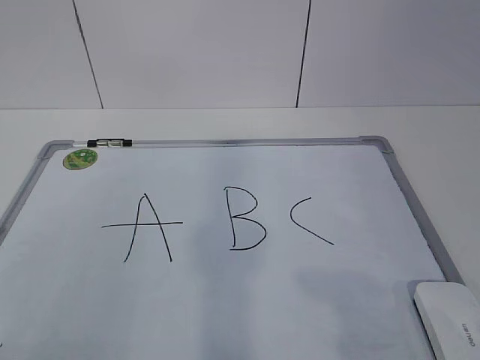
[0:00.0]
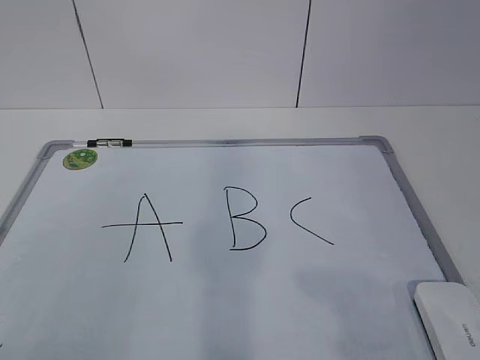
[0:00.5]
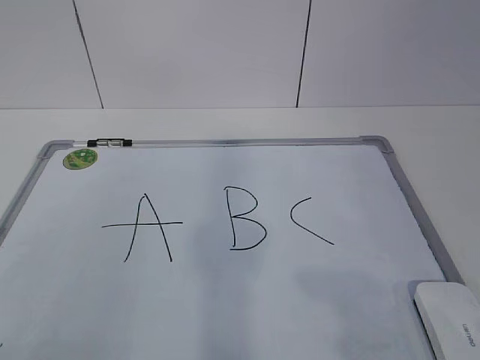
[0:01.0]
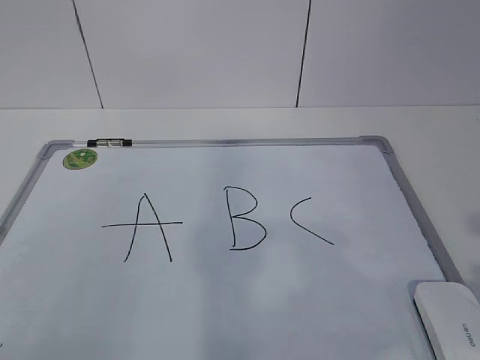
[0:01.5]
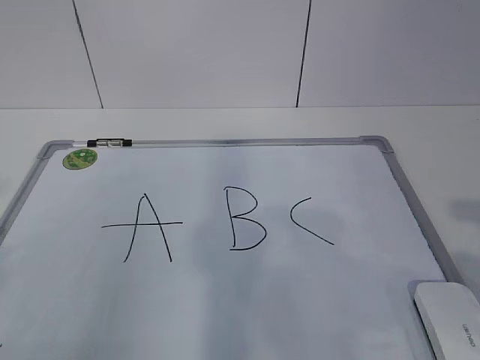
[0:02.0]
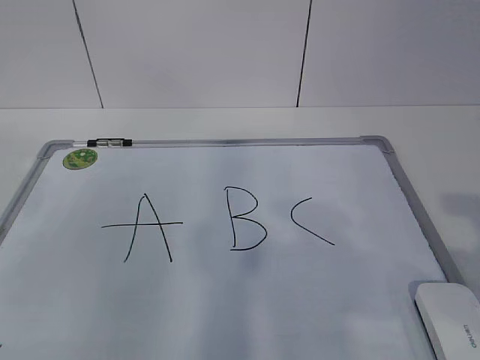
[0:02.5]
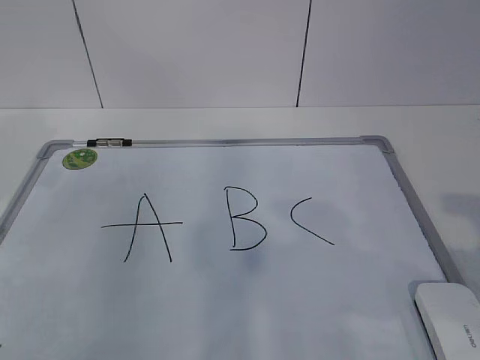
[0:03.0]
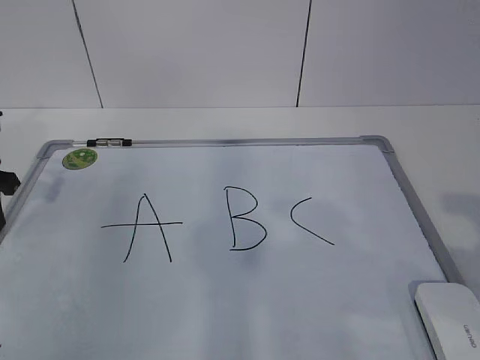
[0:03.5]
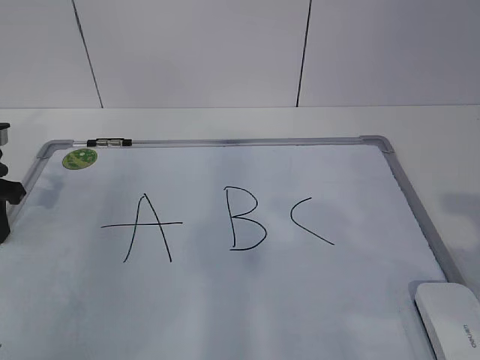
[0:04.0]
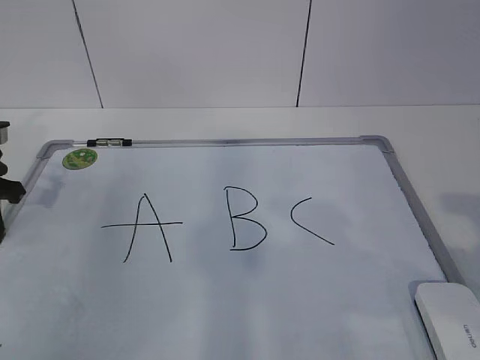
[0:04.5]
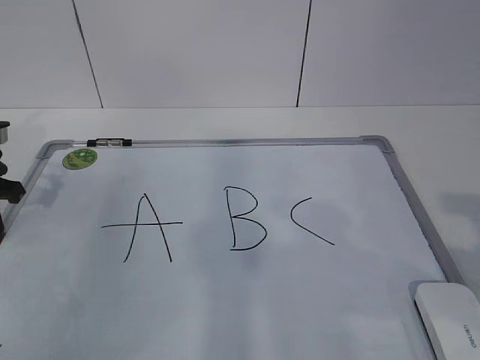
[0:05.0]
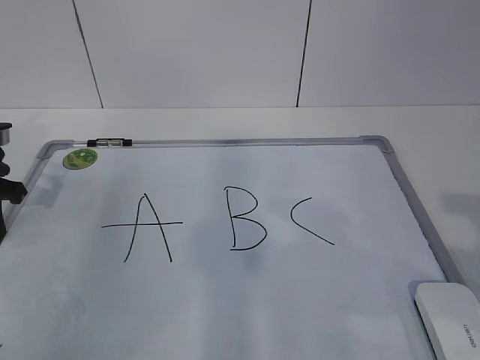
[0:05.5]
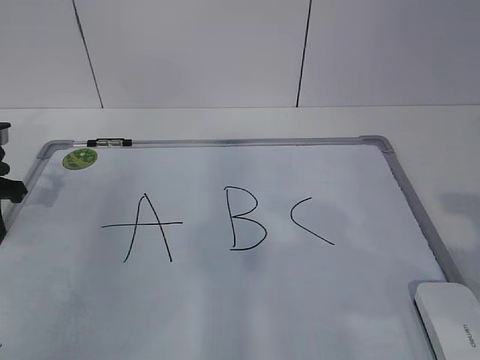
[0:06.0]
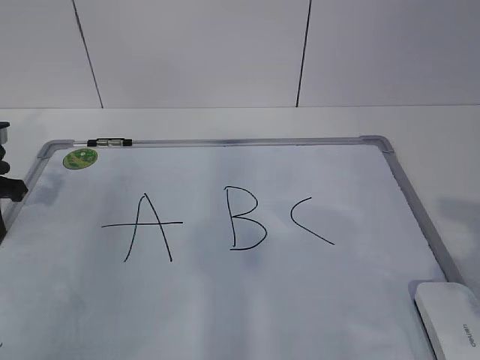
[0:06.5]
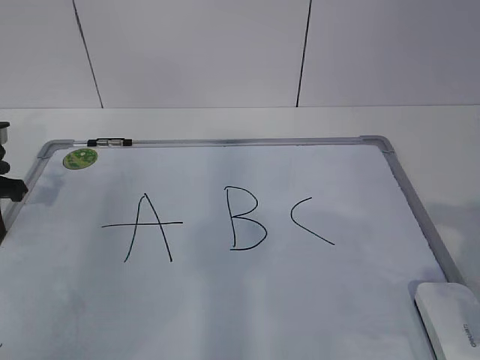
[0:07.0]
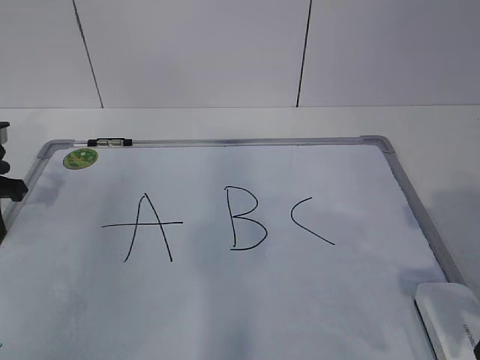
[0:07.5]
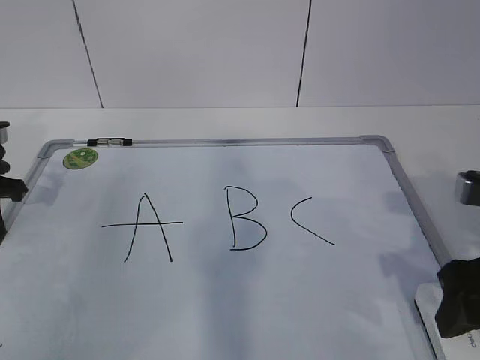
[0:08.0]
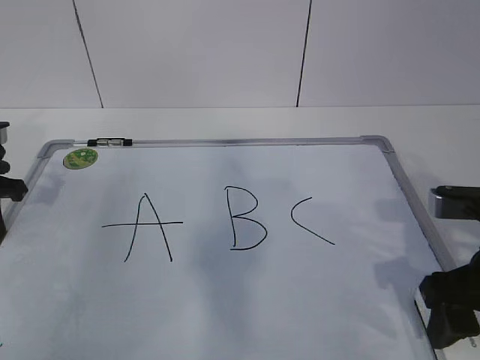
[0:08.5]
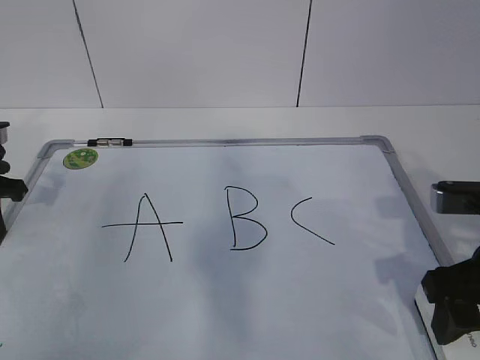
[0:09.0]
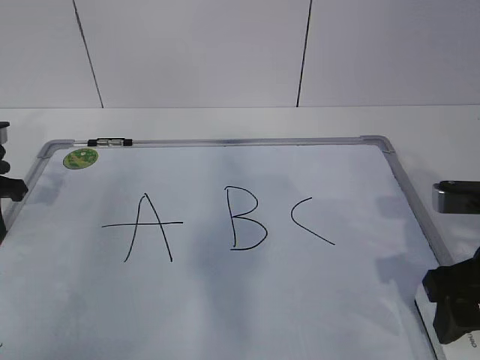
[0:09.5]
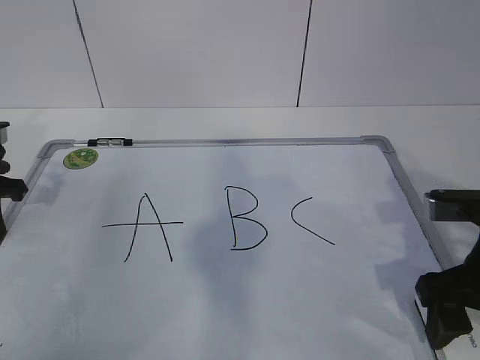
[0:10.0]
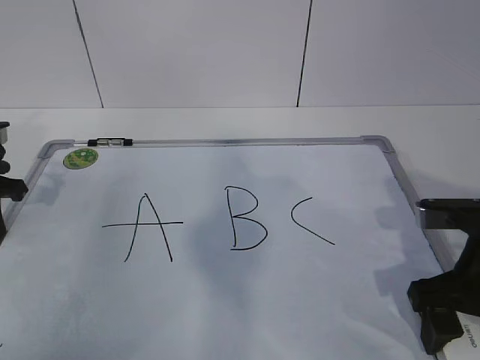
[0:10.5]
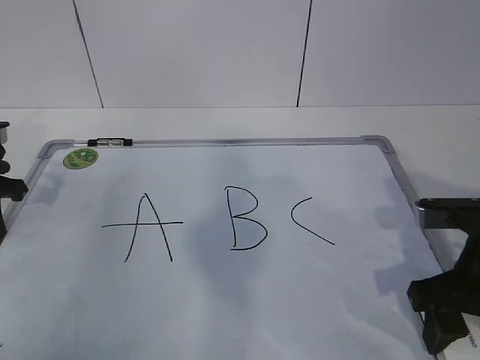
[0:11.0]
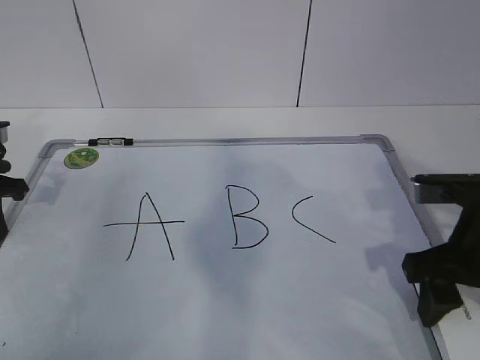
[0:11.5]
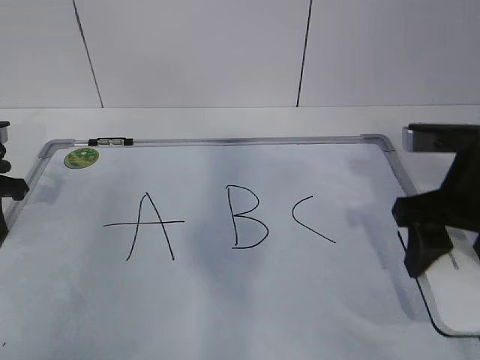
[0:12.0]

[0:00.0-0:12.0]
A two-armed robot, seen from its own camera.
Task of the whole recording: pick up the eraser on the blackboard and erase the letter "B".
Step, 0:04.0 to 0:09.0: Grab the eraser with your right hand.
0:02.0 to 0:04.0: The left gripper moves forward and downward, some 30 cm.
0:06.0 to 0:08.0: The right gripper heads forward and downward, covering some 15 cm.
0:08.0 to 0:10.0: The right gripper opens.
0:10.0 to 0:12.0: The right gripper changes place by some 5 cm, and closes its fingers.

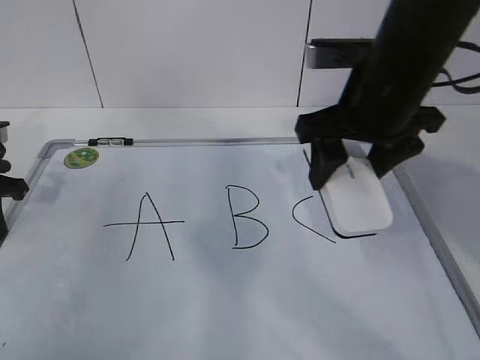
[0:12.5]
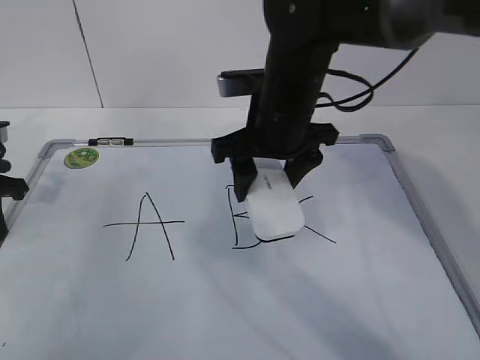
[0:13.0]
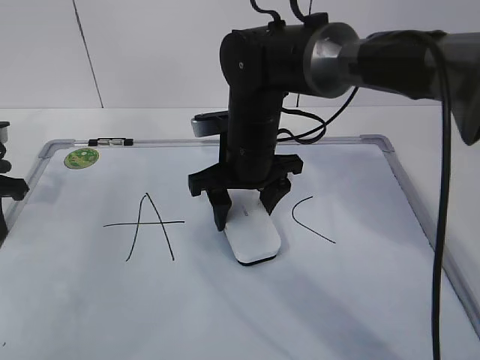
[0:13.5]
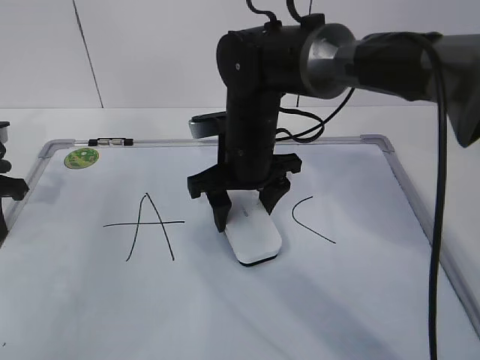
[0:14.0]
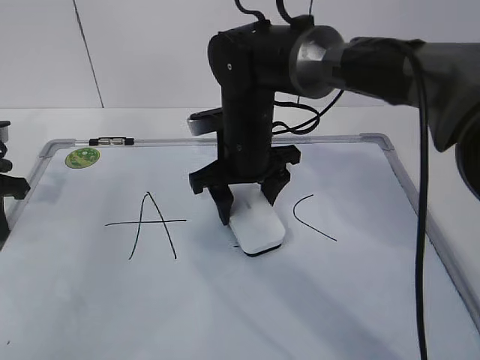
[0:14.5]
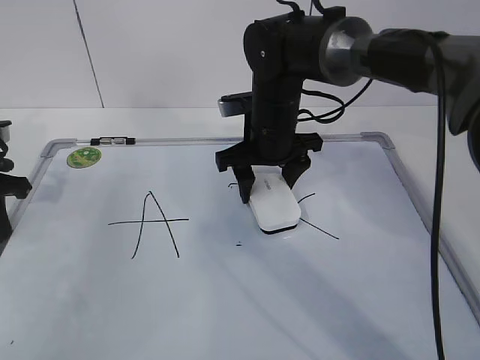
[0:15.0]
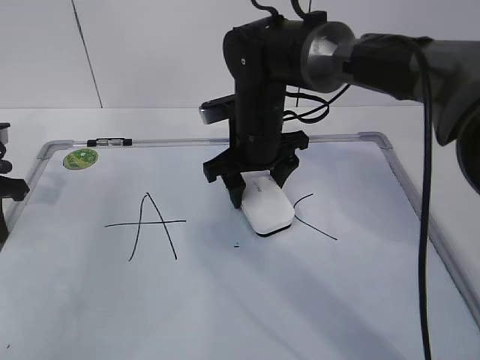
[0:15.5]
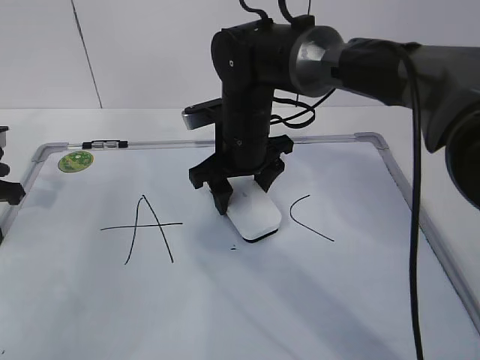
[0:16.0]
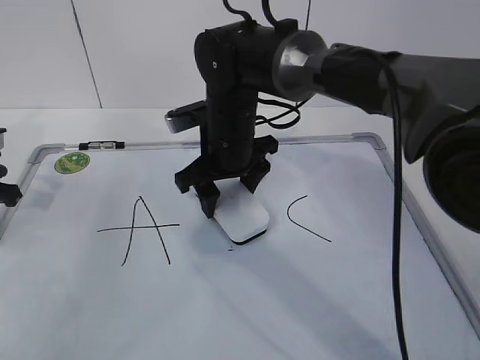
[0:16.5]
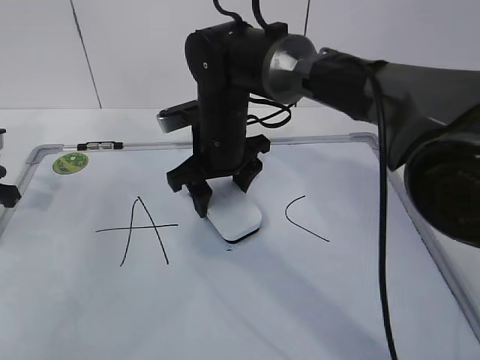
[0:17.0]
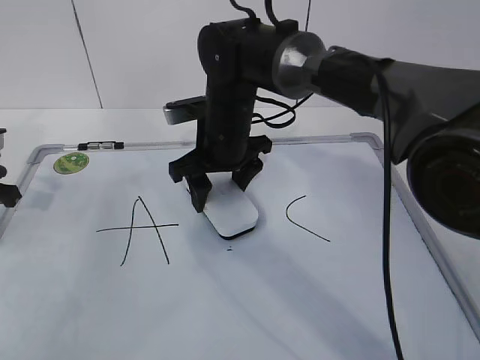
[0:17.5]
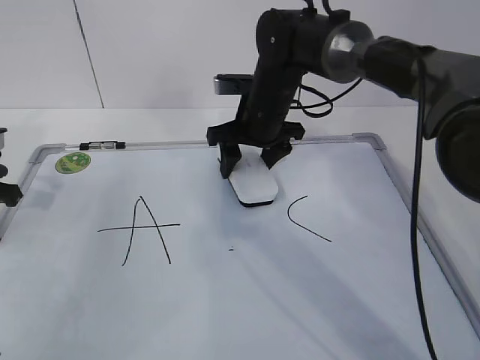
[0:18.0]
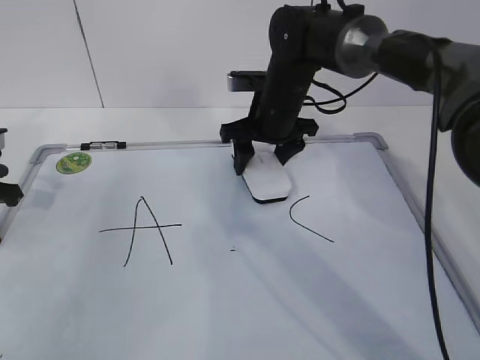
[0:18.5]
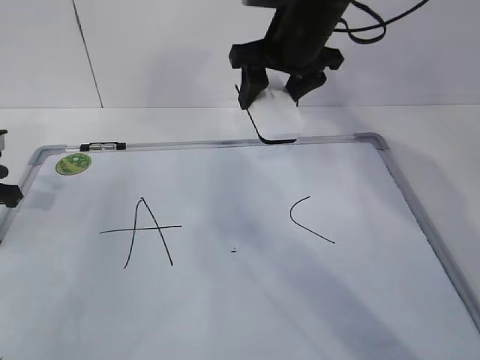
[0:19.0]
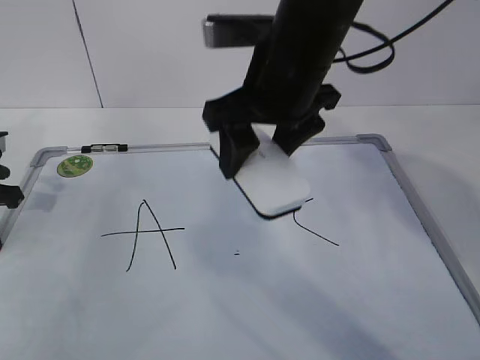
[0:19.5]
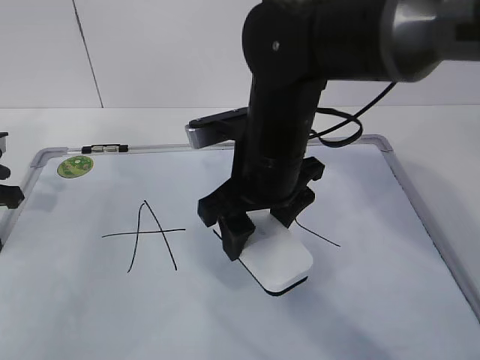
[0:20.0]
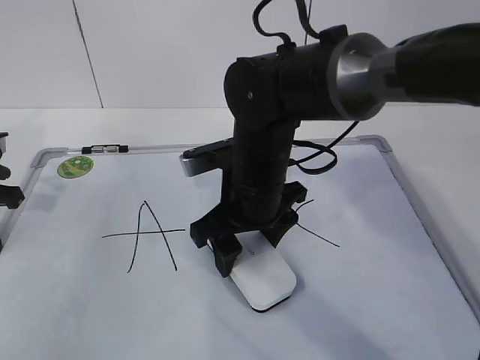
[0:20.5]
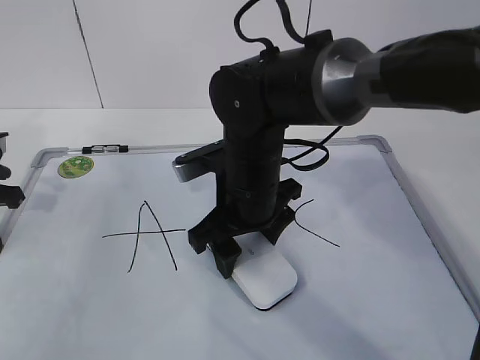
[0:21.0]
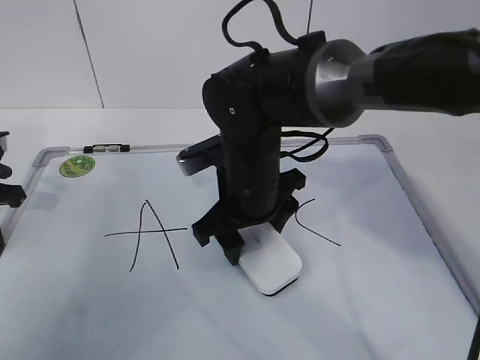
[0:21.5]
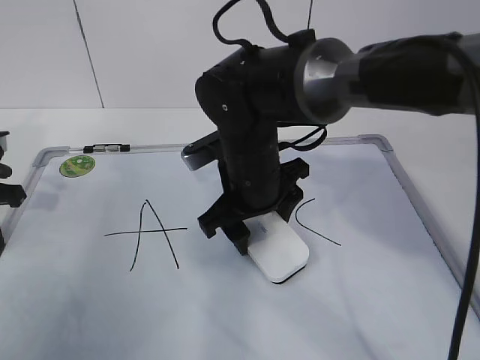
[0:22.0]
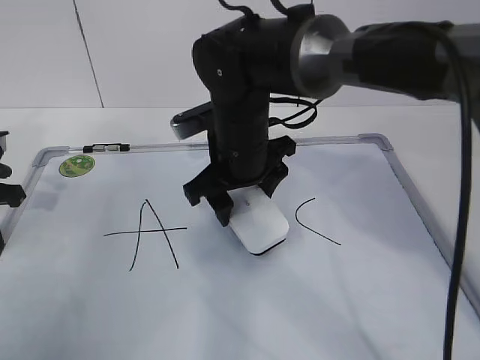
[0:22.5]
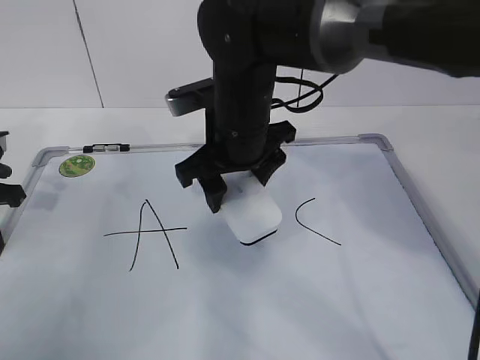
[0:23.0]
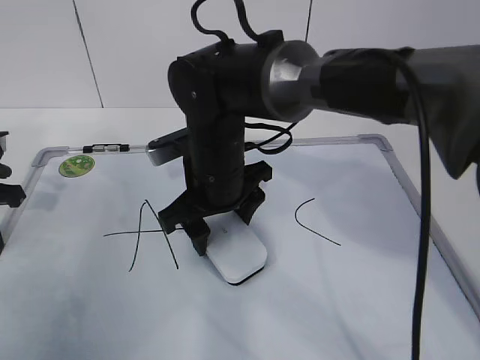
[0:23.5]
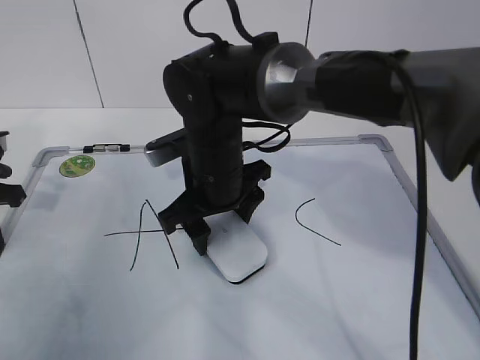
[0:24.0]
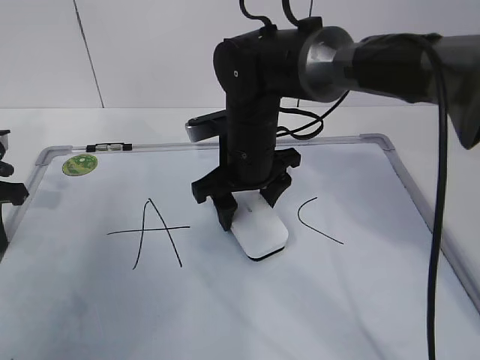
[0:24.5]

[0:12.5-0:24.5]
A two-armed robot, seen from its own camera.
Task of the whole recording: pick up the eraser on the blackboard and erase the letter "B".
Step, 0:12.5 to 0:20.5: Erase the letter B with your right hand.
Step, 0:21.0 to 0:24.0: Put down the eraser with your right hand.
0:12.5 to 0:14.5: The right gripper is displaced to the left, downward and forward by about 20 cm.
0:16.5 to 0:18.5: The right gripper shifts approximately 10 cm to the right and forward.
0:18.5 to 0:20.5: The right gripper shifts approximately 15 cm backward.
0:22.5 to 0:24.5: There are only small adjustments of the grippers.

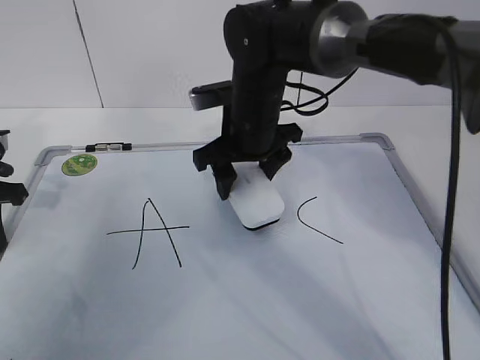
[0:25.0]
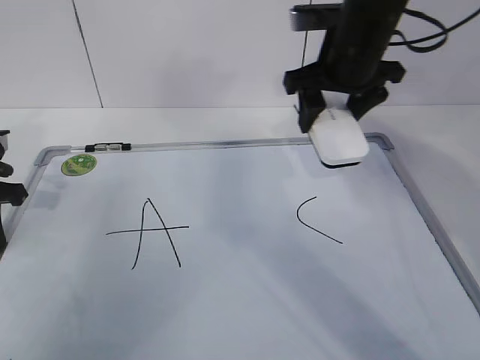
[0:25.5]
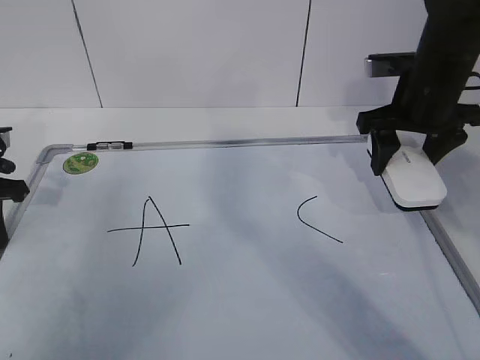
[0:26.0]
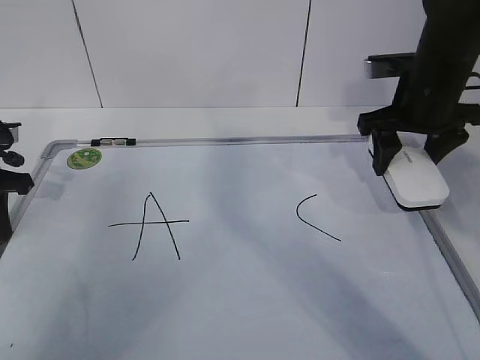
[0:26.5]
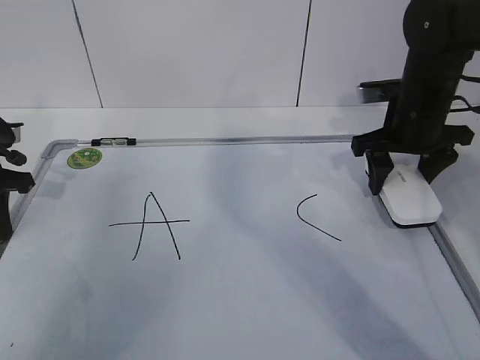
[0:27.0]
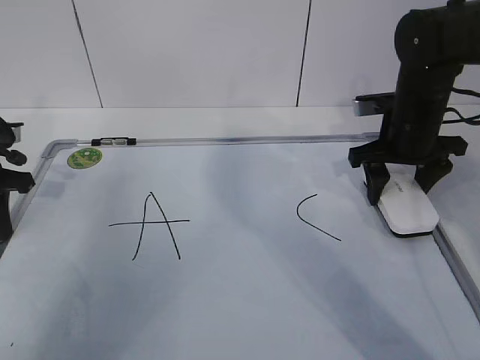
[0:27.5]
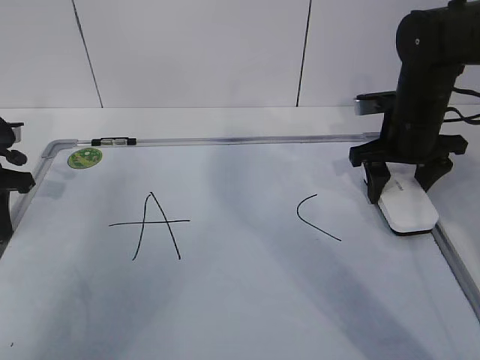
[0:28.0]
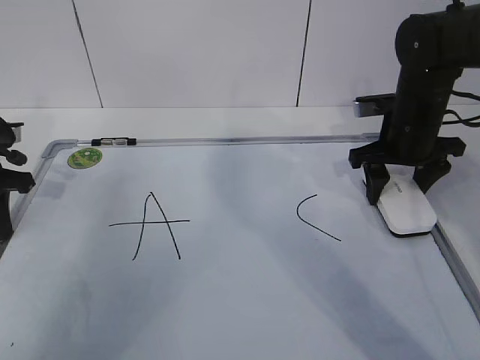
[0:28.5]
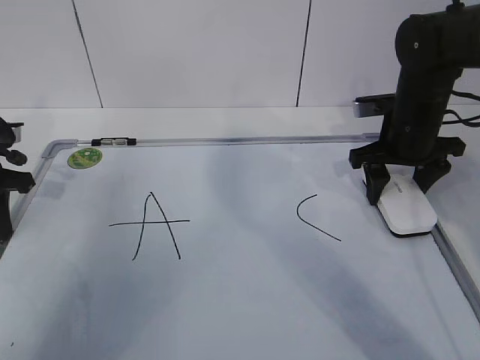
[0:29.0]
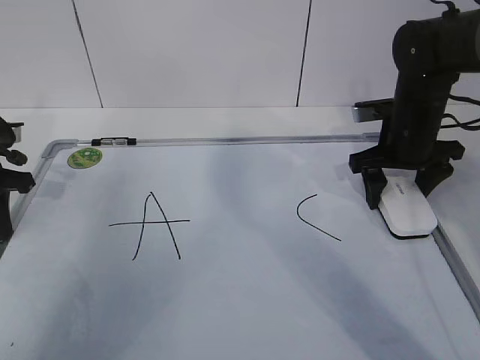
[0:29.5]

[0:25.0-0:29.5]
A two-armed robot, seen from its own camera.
Task of the whole recording: pick up the eraser on the blackboard and erase the letter "B".
0:25.0 to 0:27.0: The right gripper goes about 20 cm to the right.
0:27.0 to 0:29.5: The right gripper opens its fingers.
